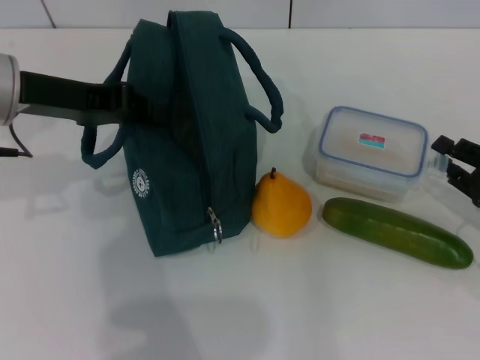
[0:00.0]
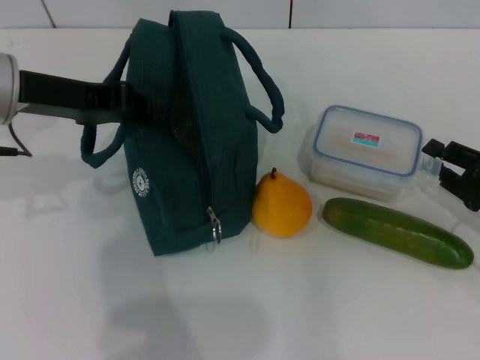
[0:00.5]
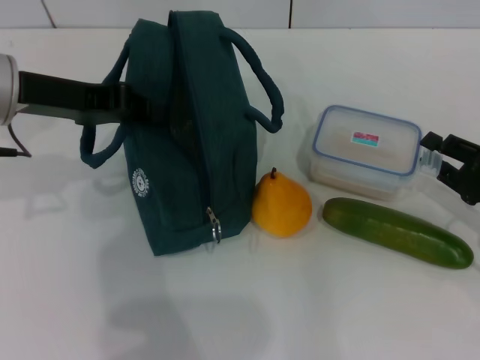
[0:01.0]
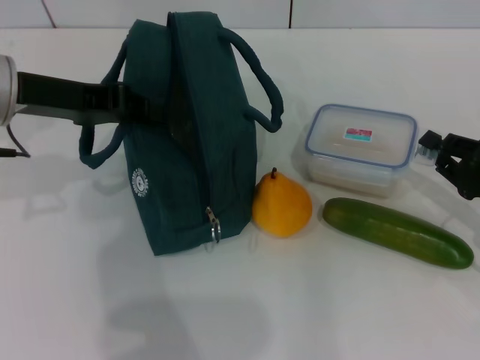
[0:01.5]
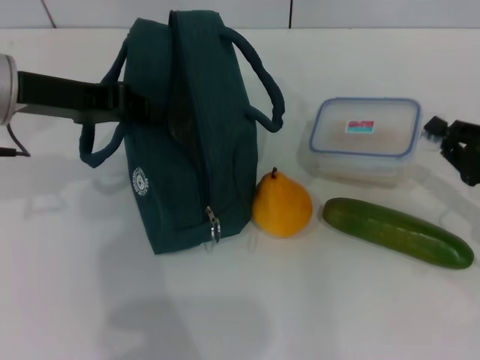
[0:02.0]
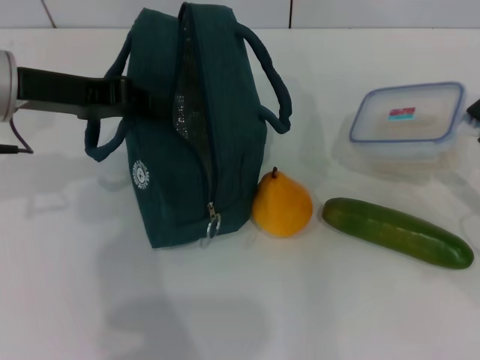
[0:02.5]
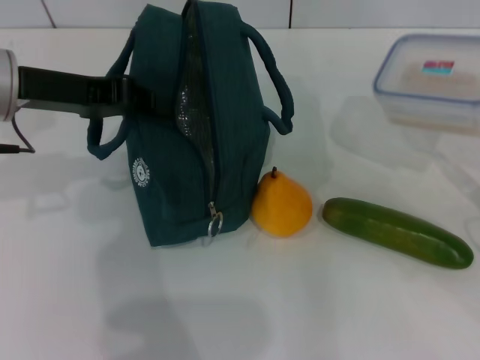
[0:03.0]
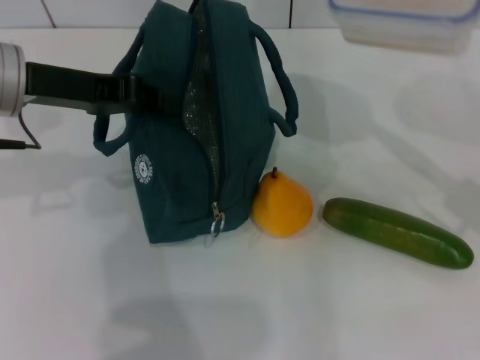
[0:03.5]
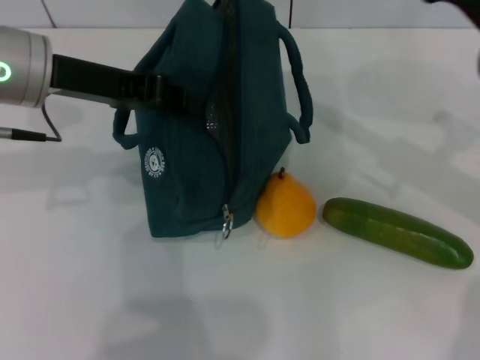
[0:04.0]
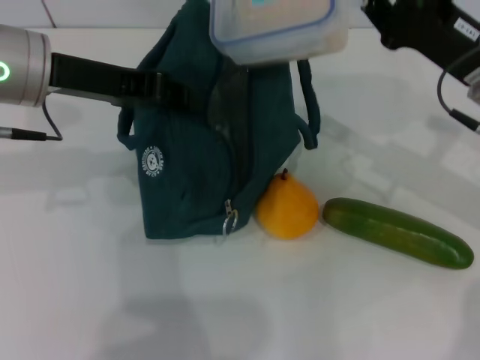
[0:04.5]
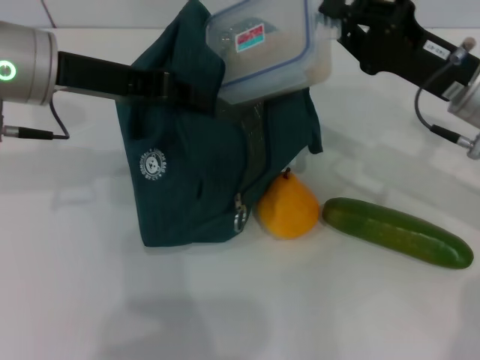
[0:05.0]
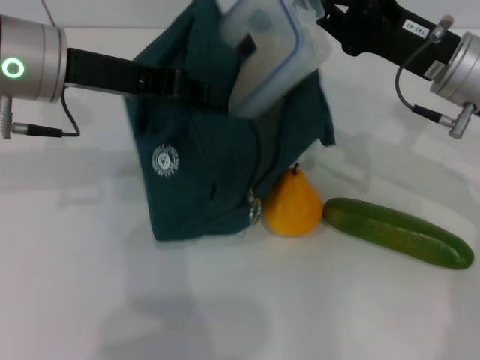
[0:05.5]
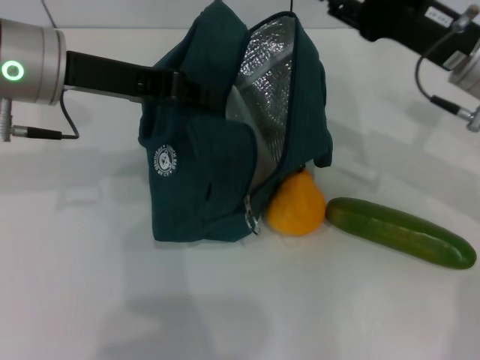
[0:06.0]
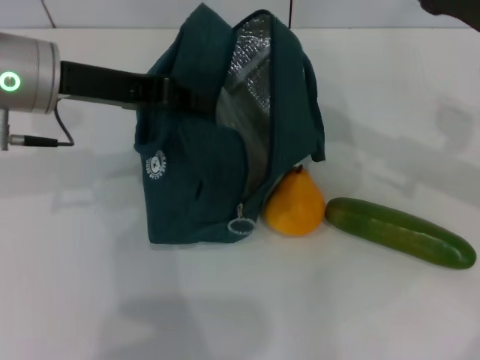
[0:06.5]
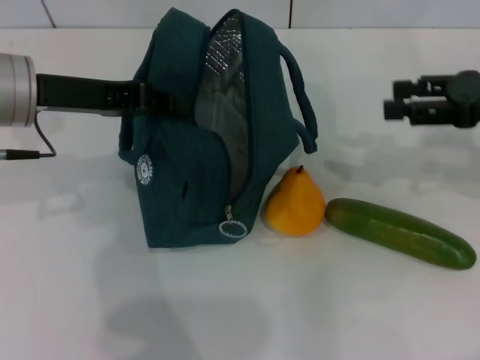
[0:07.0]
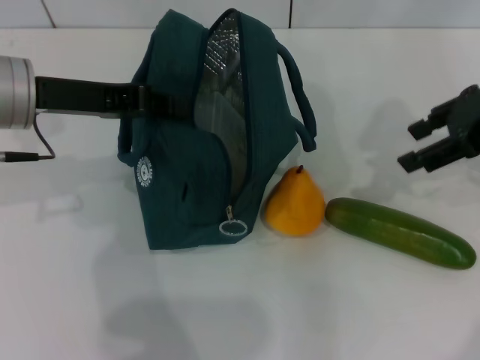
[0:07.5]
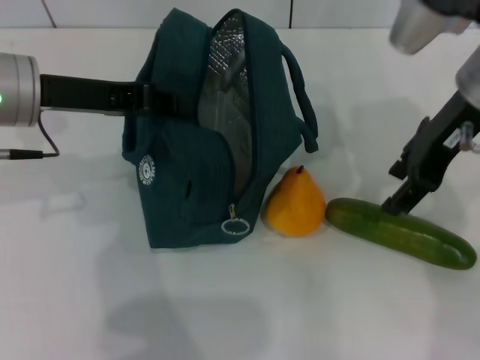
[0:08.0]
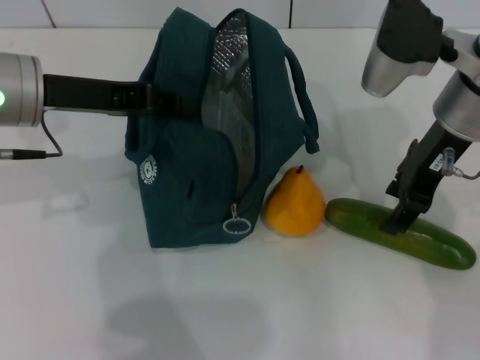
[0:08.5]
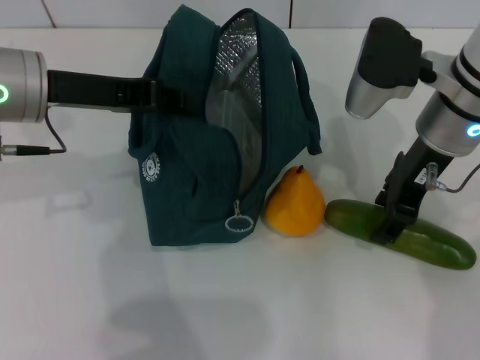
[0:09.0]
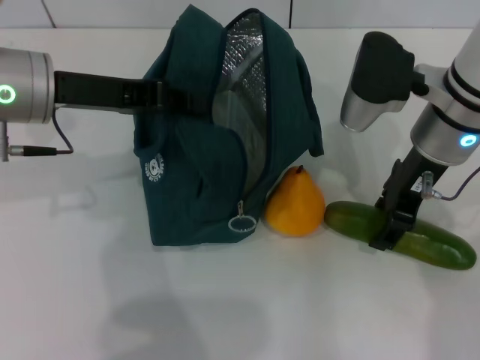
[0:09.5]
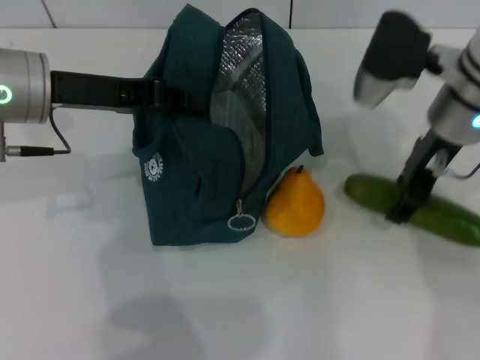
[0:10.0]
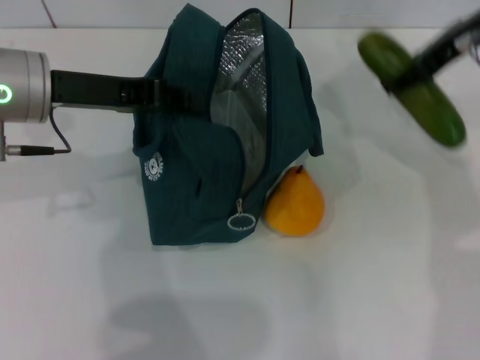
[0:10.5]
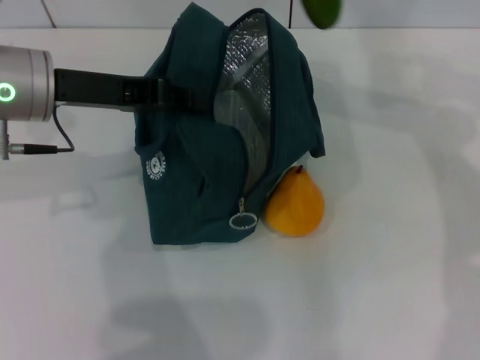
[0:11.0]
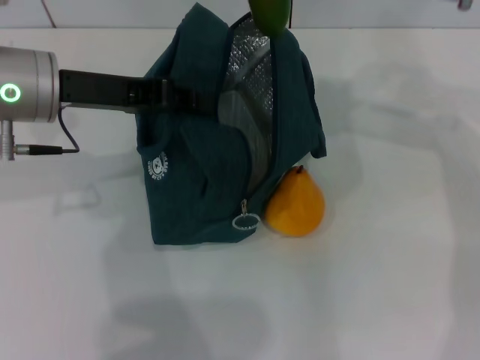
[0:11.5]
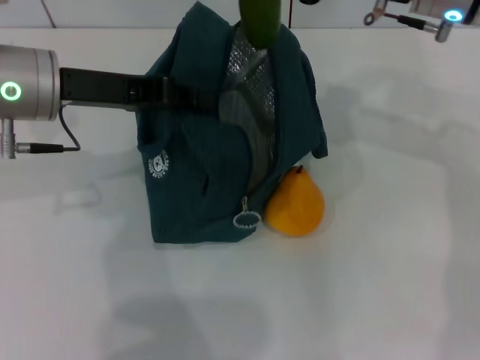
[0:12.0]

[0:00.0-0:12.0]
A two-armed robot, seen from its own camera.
Step, 0:00.0 to 0:05.5: Place the lunch box into the lunch bag with your right hand.
Step, 0:06.0 to 0:09.5: Pick up the cucumber with your right hand.
0:00.0 to 0:02.0: The right gripper closes.
0:02.0 to 0:04.0: The right gripper shifts approximately 15 cm upward, to the left and forward.
0:04.0 to 0:06.0: The right gripper opens.
0:06.0 to 0:08.0: The right gripper travels upward by approximately 5 cm, and goes to the right and returns, about 10 cm each way.
0:08.0 to 0:10.0: The right gripper moves some 5 cm.
0:10.0 to 0:12.0: The right gripper moves some 15 cm upward and comes back.

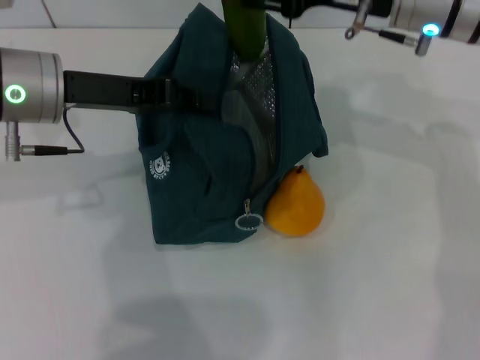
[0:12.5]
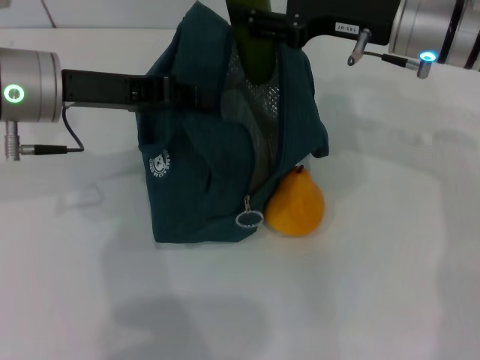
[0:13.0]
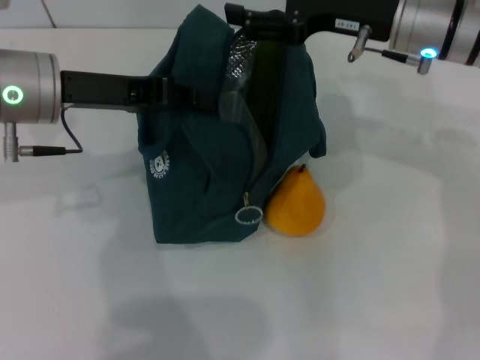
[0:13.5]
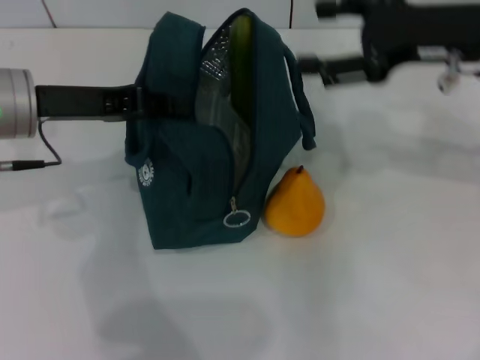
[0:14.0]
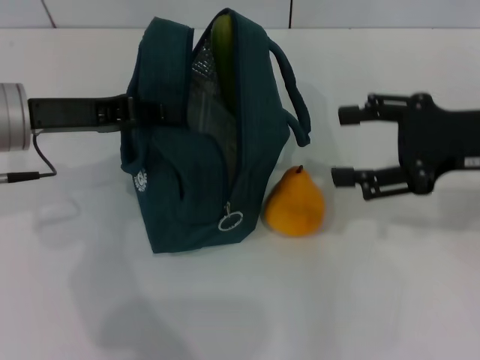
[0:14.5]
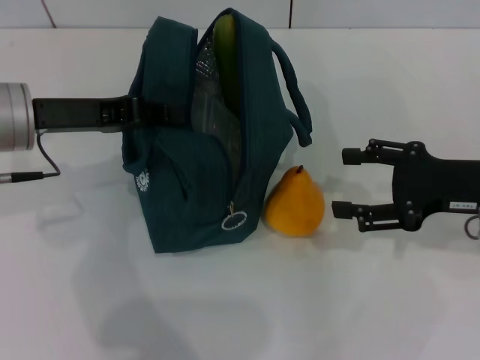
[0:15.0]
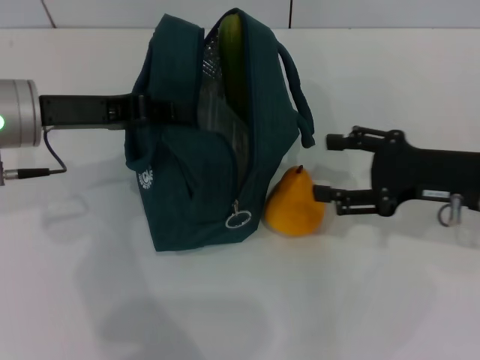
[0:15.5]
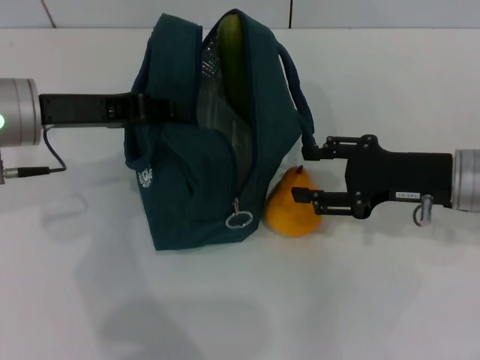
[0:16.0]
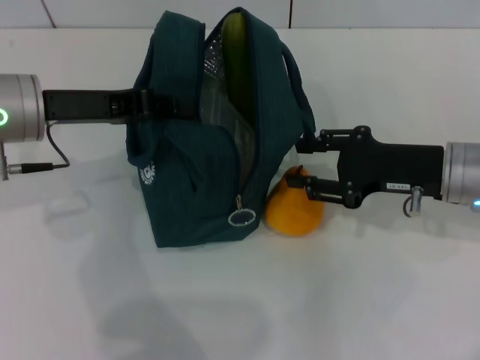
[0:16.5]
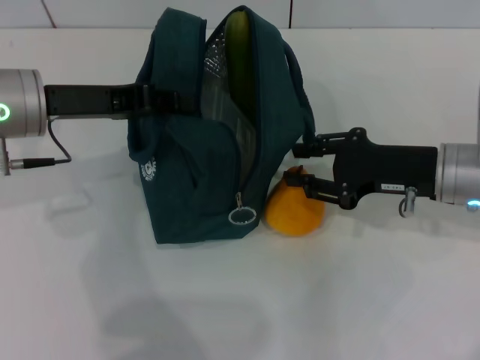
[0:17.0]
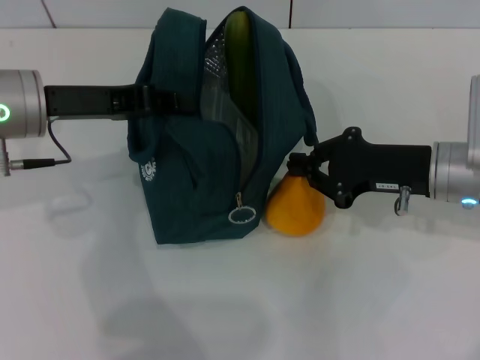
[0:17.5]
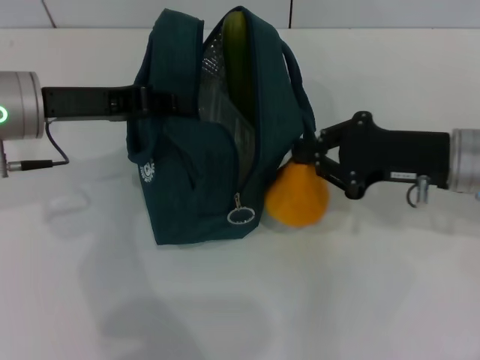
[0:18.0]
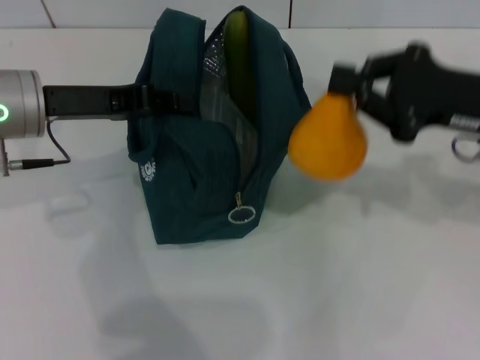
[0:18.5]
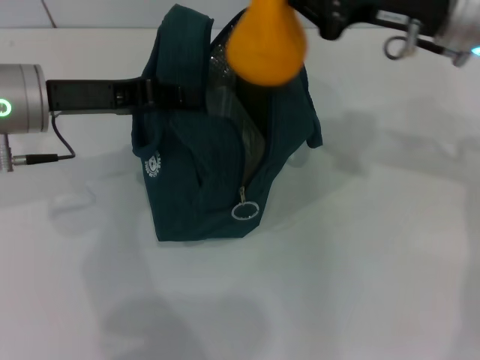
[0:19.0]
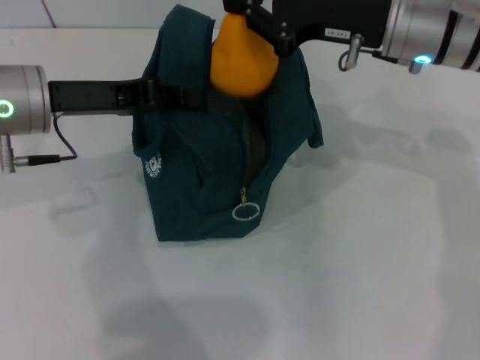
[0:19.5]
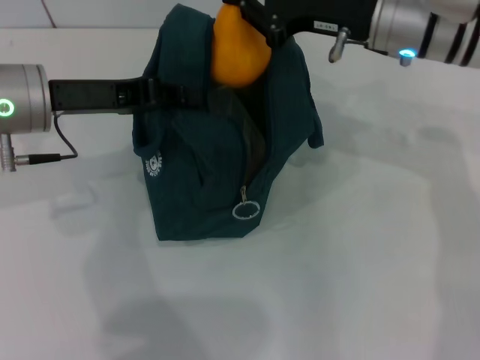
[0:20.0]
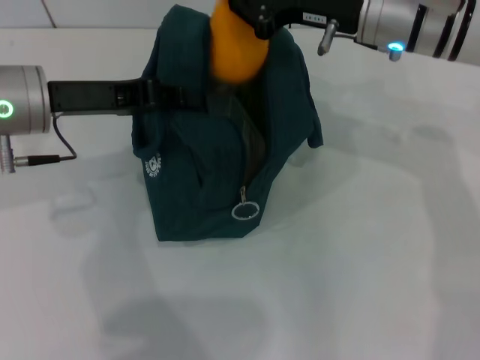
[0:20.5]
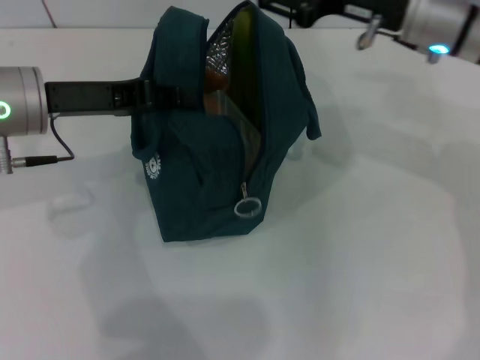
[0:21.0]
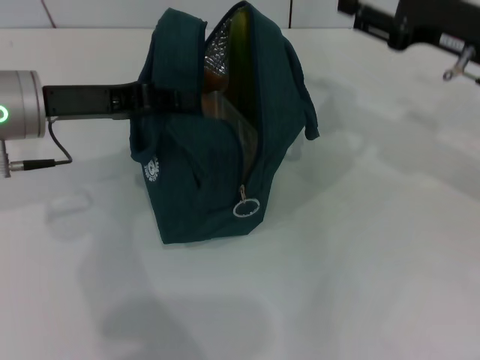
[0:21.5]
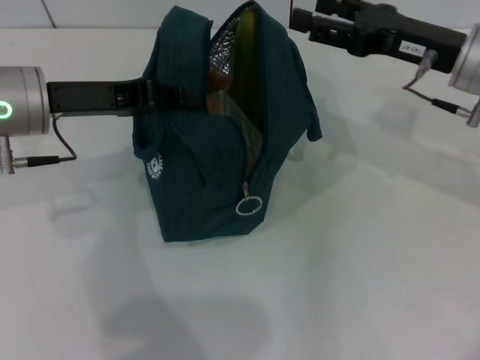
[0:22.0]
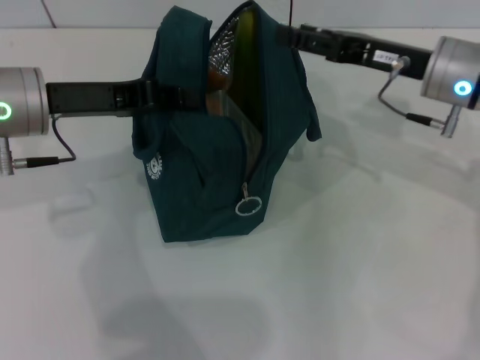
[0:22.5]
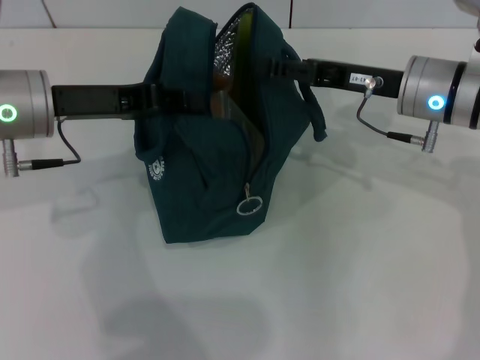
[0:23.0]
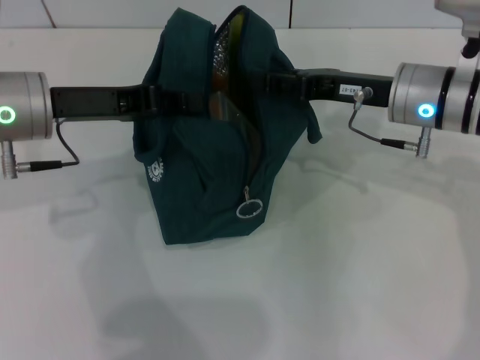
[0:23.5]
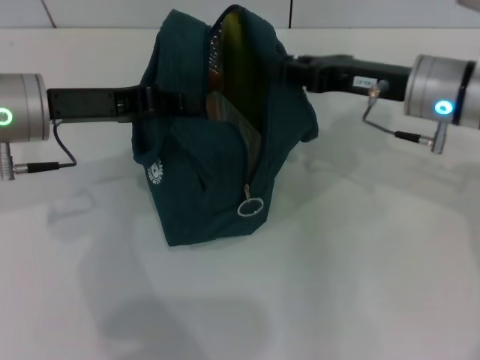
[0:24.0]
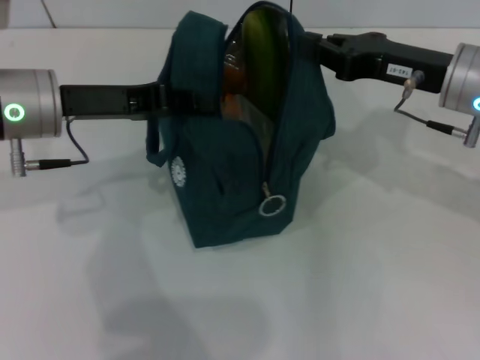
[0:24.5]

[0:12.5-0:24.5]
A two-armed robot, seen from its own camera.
Step, 0:13.5 to 0:17.5: Grab the pear with your right hand.
0:12.5 to 0:14.5: The right gripper goes about 15 cm backward and to the right.
0:14.5 to 0:16.5: The right gripper is displaced downward by approximately 10 cm, and closes its fingers.
0:16.5 to 0:18.5: The right gripper shifts roughly 5 cm upward, and closes its fingers.
0:18.5 to 0:20.5: The right gripper heads to the left and forward, covering roughly 15 cm.
0:20.5 to 0:22.5: The right gripper moves to the right, roughly 5 cm, and opens its fingers.
0:22.5 to 0:24.5: The right gripper closes.

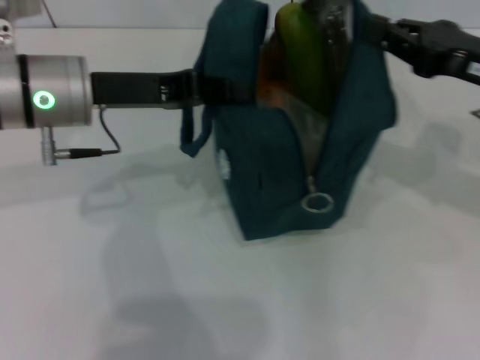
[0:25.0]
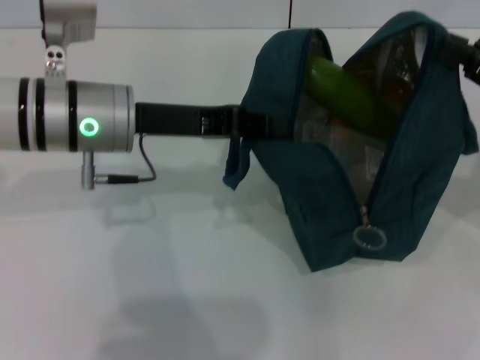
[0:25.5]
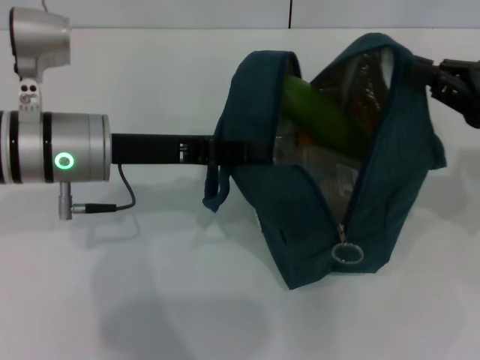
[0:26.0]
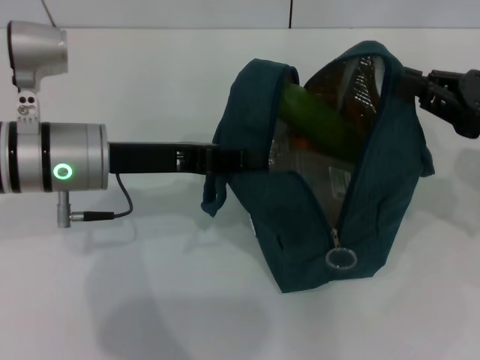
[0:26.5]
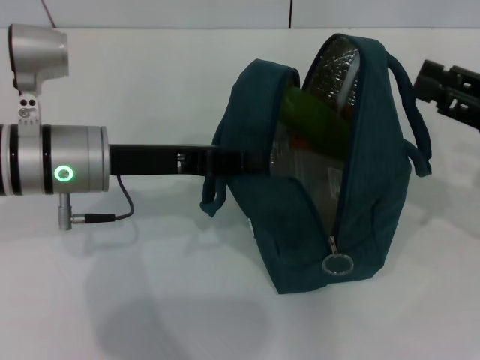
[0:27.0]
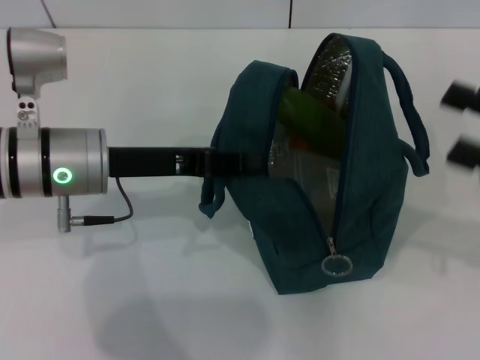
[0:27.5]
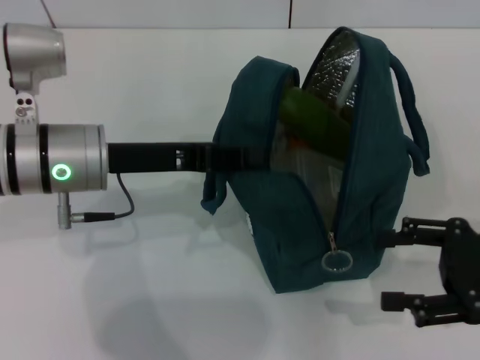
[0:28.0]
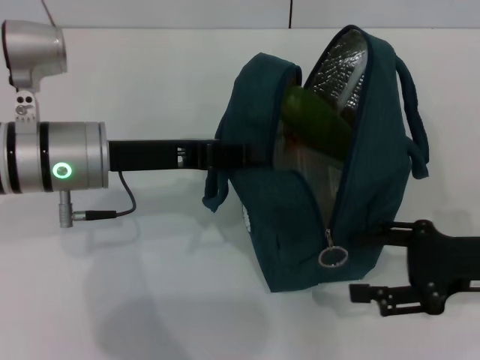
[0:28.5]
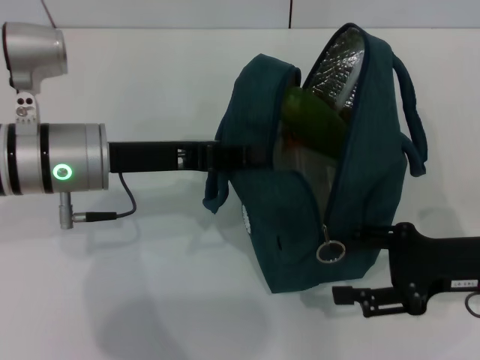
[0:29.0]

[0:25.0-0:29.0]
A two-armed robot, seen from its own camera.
0:25.0 to 0:27.0: The right gripper ends up about 5 cm from where it was, and opens up. The left gripper ends up roughly 5 cm from where it was.
0:27.0 to 0:29.0: The right gripper moves downward and to the left, some 10 cm, and opens up.
